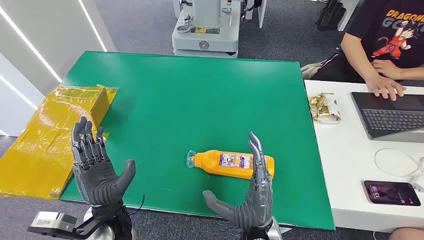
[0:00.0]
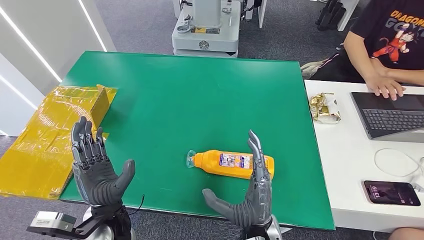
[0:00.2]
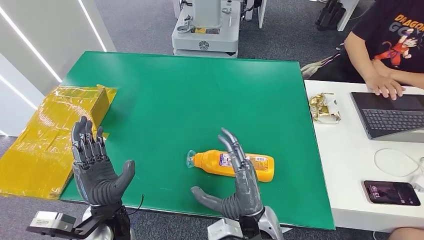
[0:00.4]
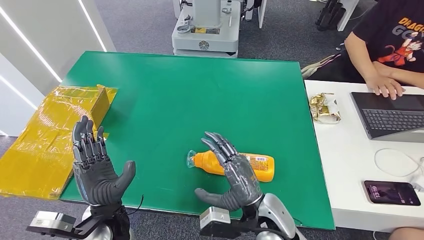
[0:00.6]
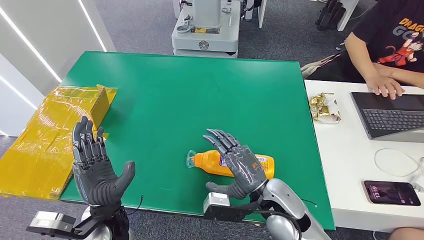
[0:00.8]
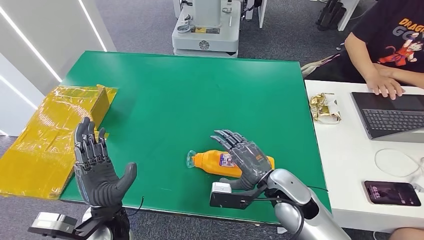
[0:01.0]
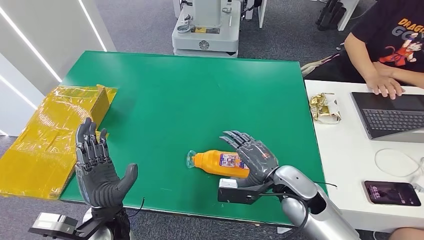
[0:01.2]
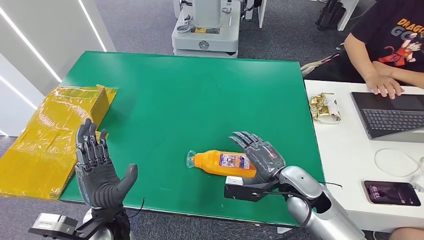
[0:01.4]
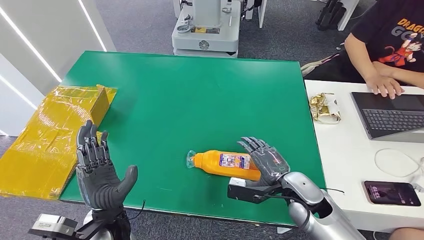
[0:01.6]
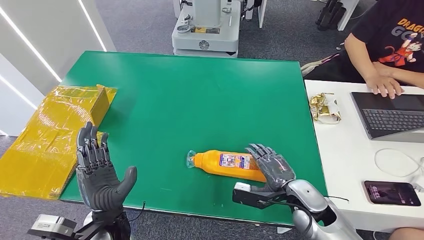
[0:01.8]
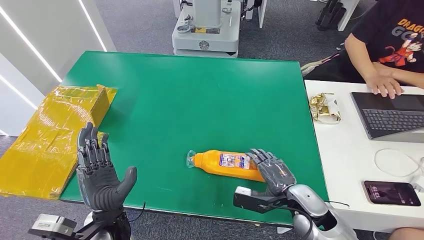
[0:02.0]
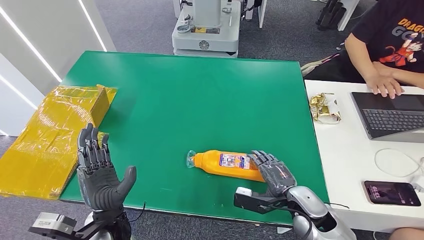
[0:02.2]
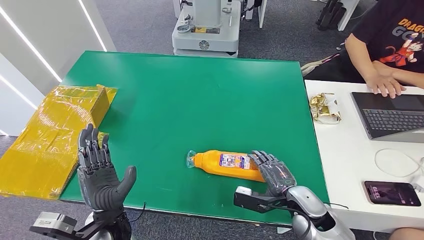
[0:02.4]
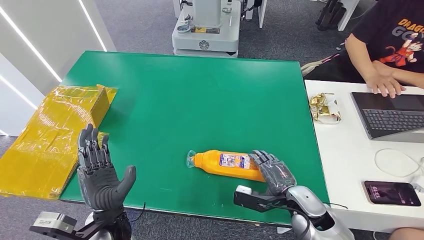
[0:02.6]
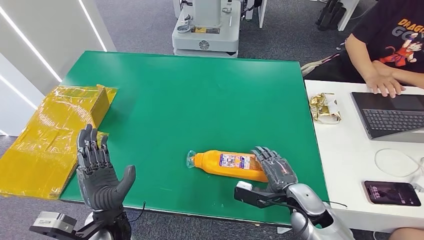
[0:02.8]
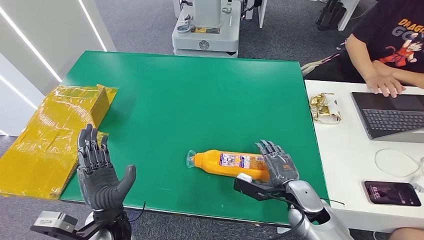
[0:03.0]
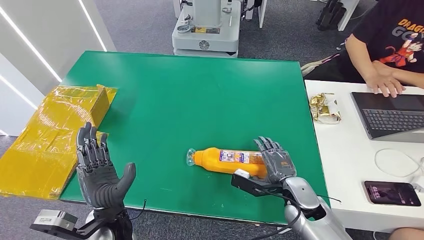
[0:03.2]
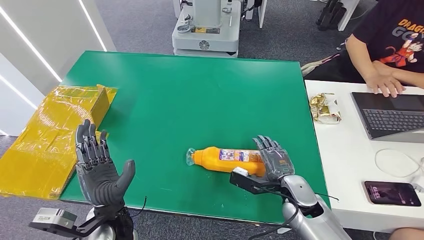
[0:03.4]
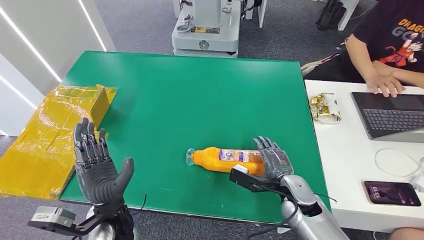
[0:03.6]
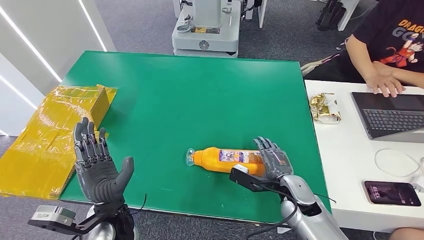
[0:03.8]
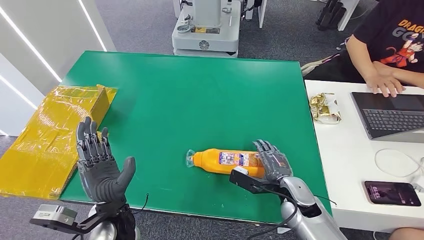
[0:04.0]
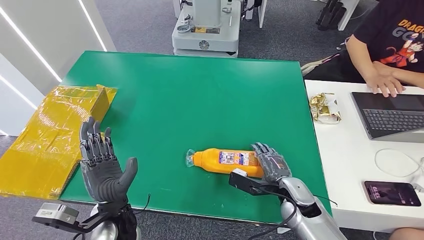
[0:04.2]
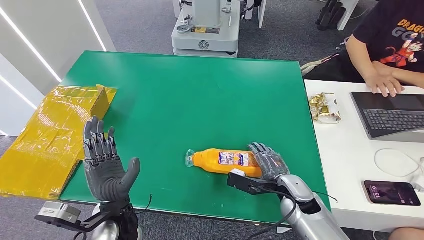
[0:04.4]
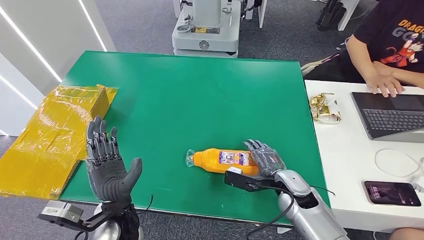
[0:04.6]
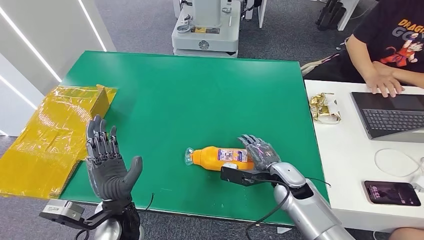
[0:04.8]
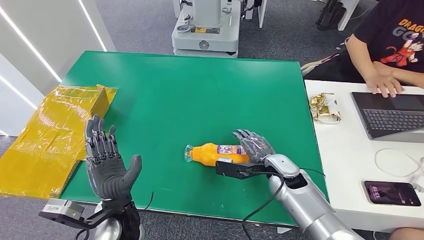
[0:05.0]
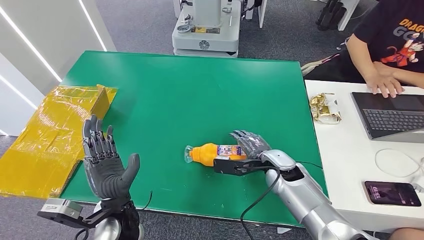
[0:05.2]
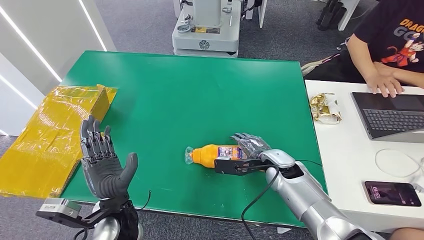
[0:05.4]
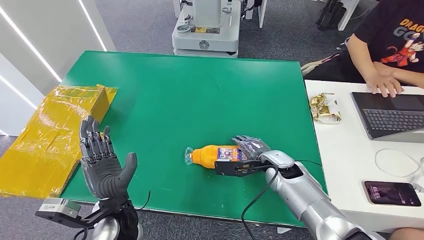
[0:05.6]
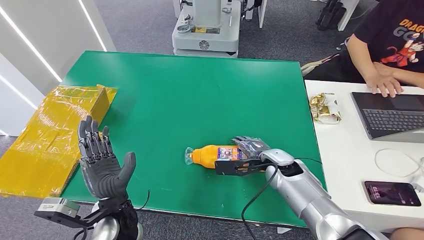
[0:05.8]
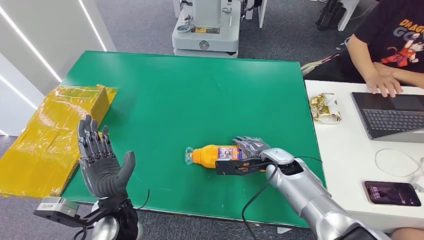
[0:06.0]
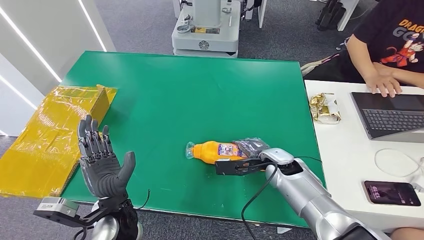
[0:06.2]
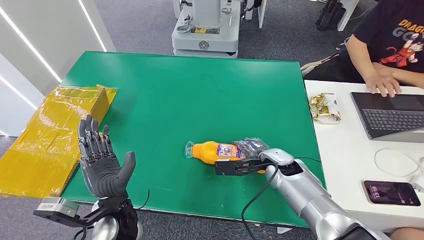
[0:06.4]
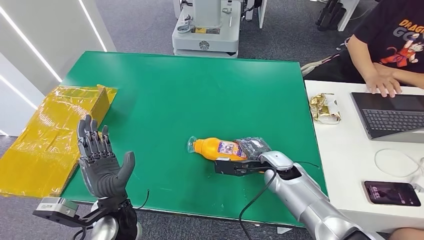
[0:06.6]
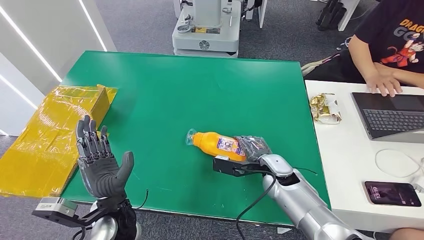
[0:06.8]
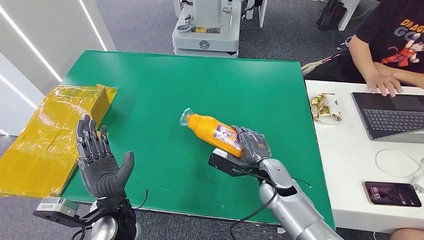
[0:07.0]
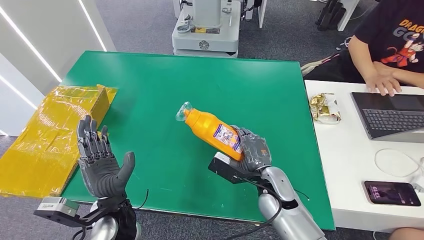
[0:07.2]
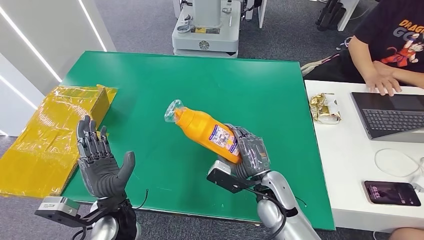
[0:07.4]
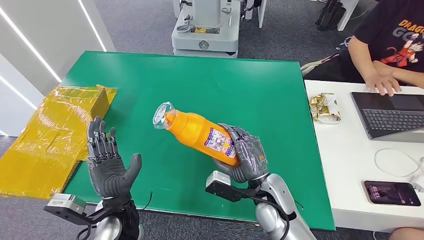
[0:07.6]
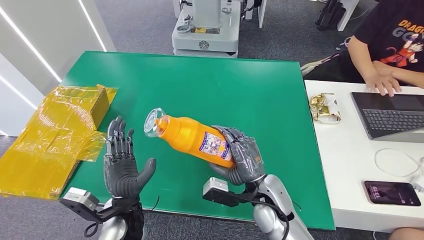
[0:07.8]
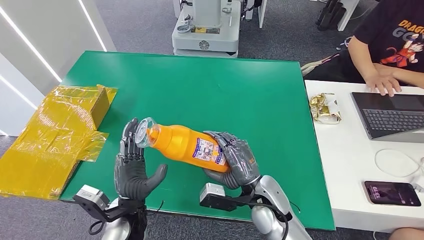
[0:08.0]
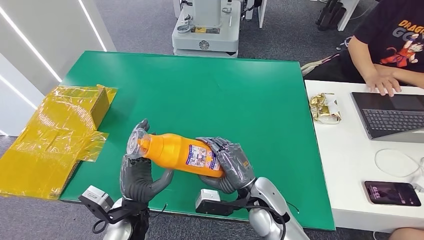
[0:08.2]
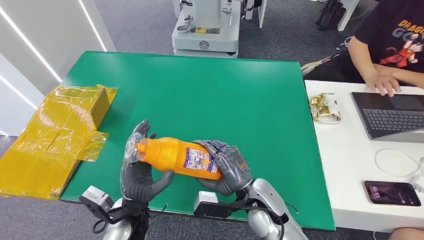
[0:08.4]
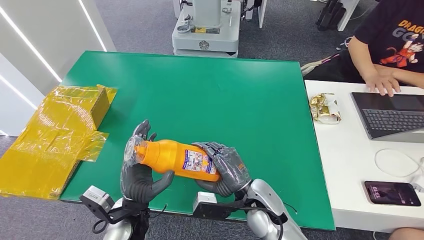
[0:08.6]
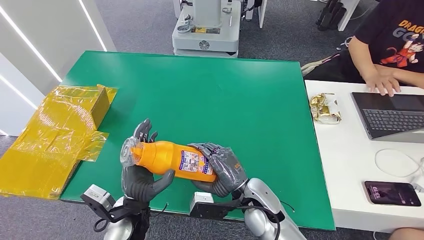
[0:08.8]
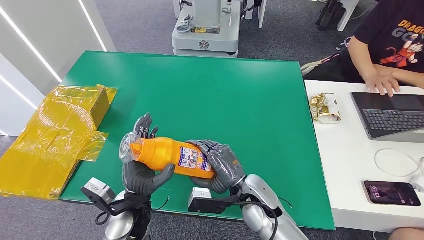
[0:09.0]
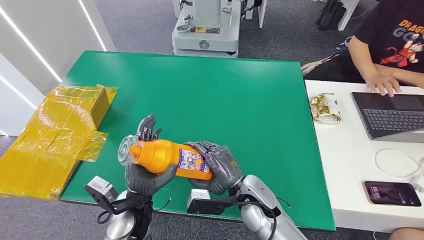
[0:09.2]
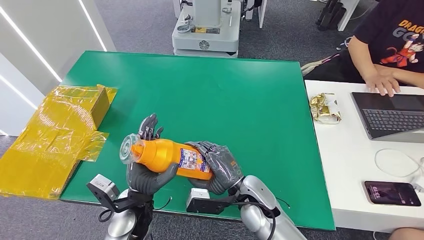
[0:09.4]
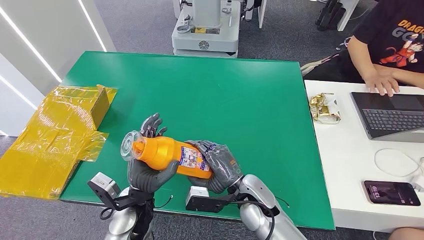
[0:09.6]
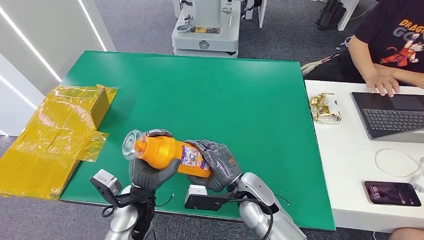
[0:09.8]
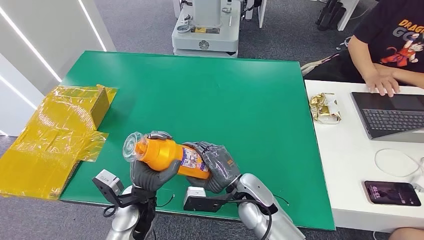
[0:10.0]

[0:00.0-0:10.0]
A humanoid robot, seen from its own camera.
Step, 0:00.0 to 0:07.4: Pick up the bottle from the table.
0:01.4 to 0:02.8: The right hand shifts roughly 5 cm downward.
0:02.8 to 0:04.2: The hands stay close to where they were, moving slightly.
0:04.2 to 0:05.8: The right hand travels forward by about 5 cm.
0:05.8 to 0:07.2: The right hand goes roughly 5 cm backward.
0:07.2 to 0:08.6: The right hand changes place by some 5 cm.
0:08.6 to 0:10.0: There are only small adjustments of the hands.

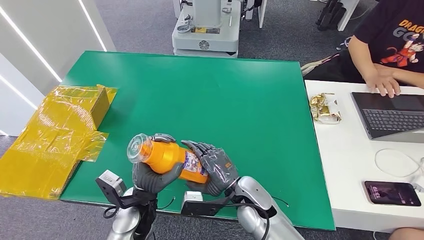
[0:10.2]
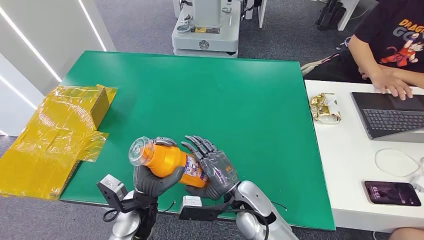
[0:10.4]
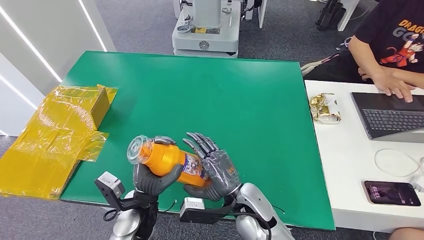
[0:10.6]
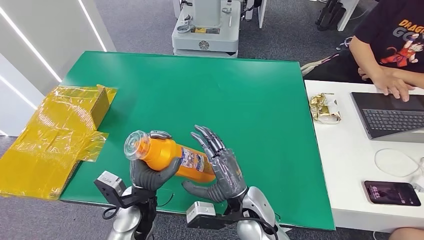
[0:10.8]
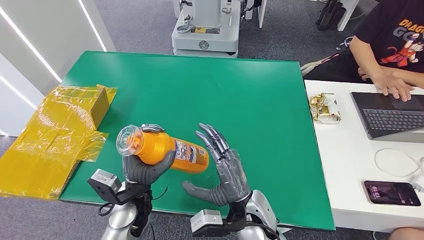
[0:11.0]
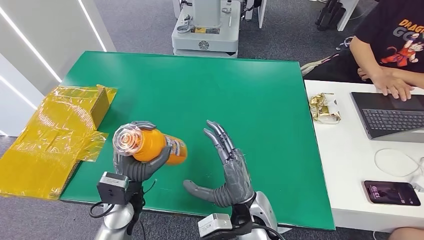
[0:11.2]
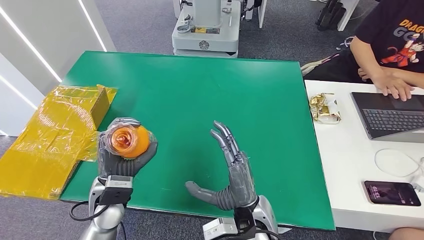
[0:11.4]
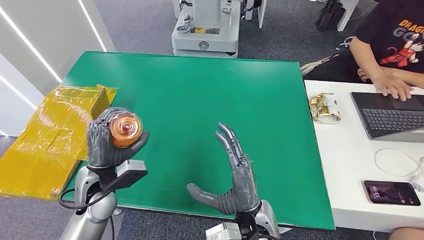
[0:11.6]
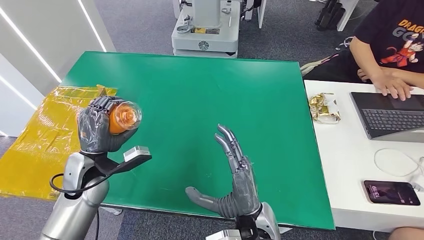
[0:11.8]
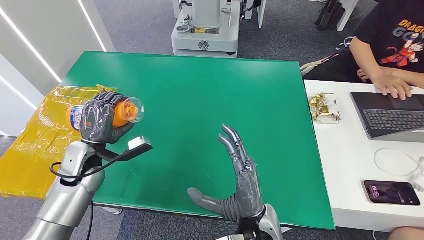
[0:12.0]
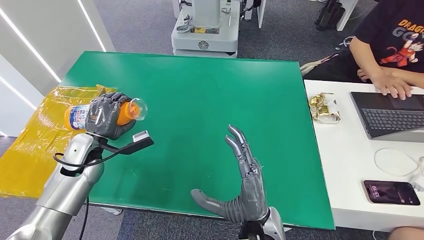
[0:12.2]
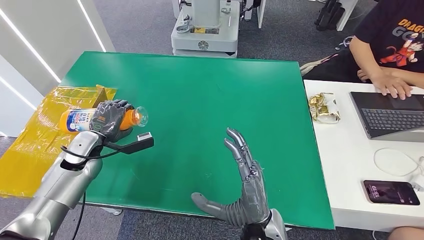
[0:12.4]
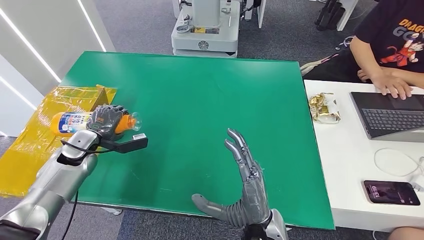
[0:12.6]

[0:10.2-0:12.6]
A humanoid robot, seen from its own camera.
Step, 0:10.2 to 0:12.6: Turn the bottle to the front side.
0:10.2 to 0:11.4: The left hand is displaced to the left by some 5 cm. Meanwhile the right hand goes about 5 cm backward.
0:11.4 to 0:12.6: The left hand shifts approximately 20 cm to the left and forward.
